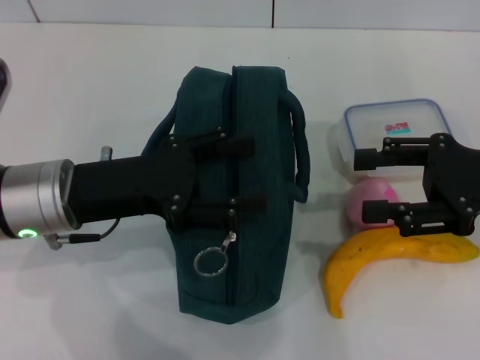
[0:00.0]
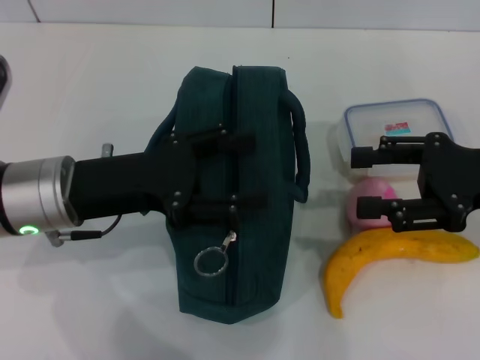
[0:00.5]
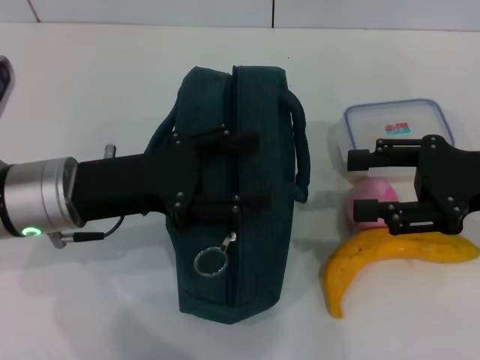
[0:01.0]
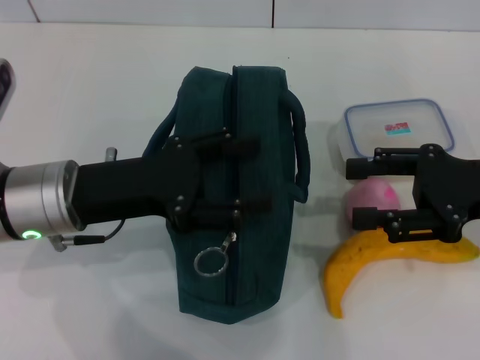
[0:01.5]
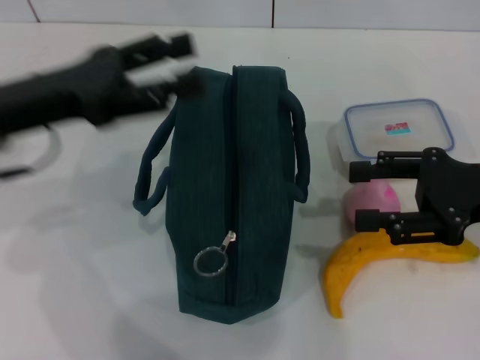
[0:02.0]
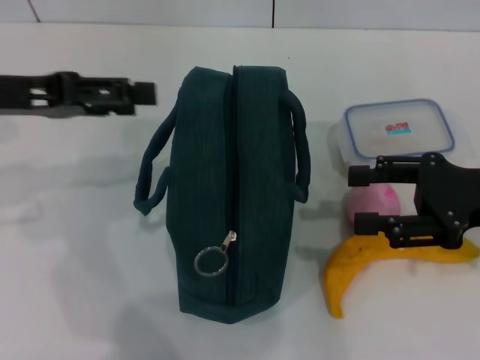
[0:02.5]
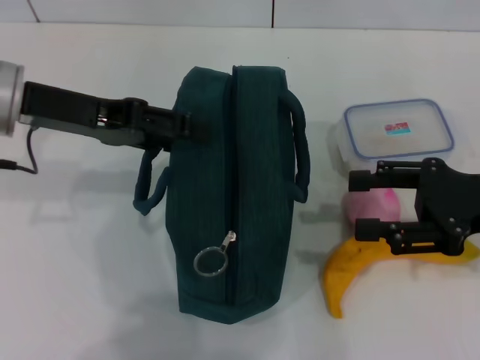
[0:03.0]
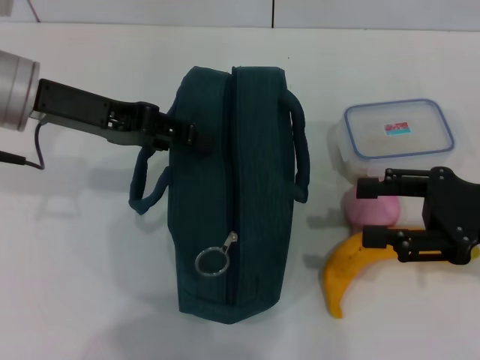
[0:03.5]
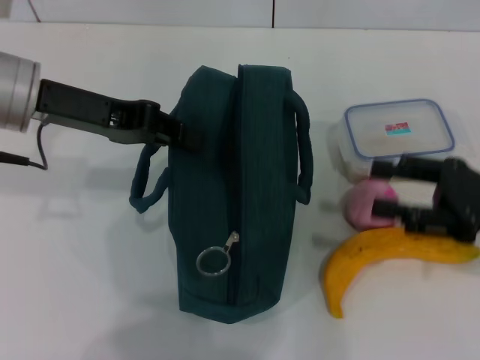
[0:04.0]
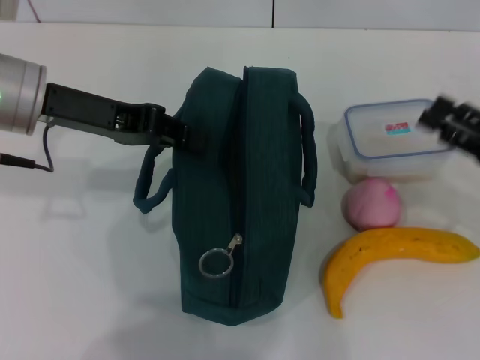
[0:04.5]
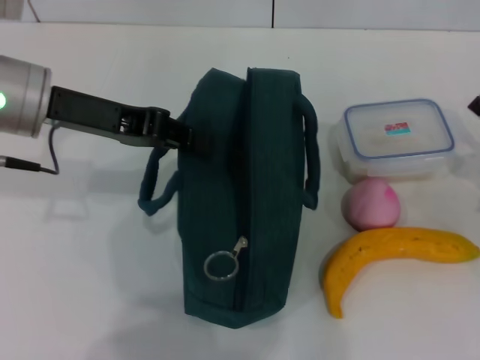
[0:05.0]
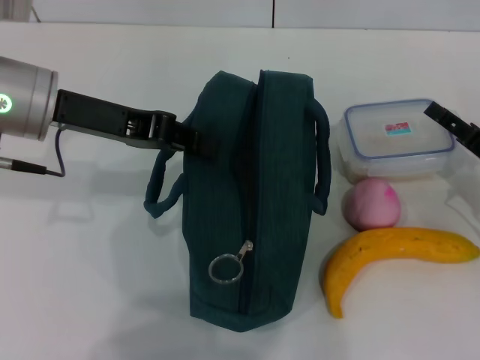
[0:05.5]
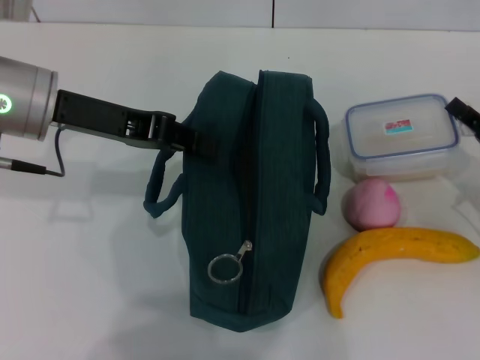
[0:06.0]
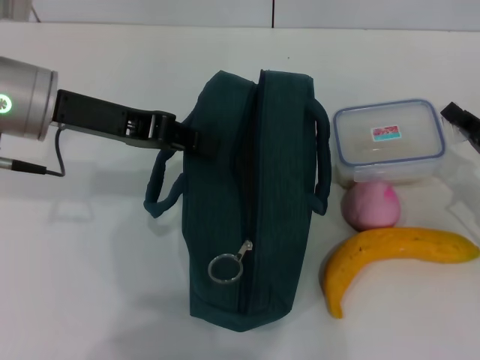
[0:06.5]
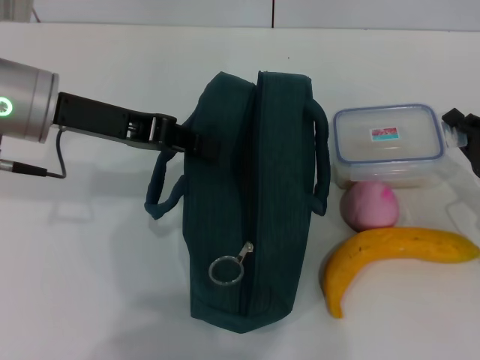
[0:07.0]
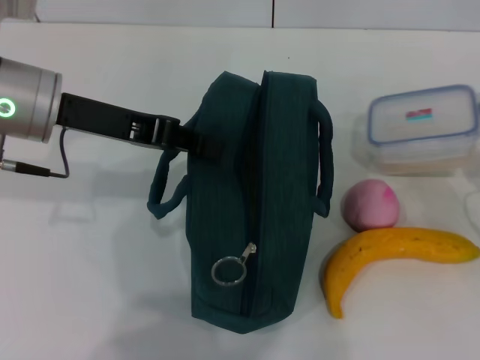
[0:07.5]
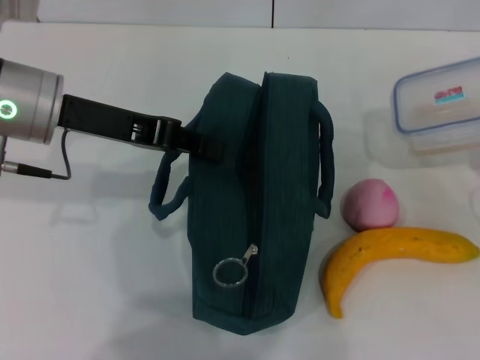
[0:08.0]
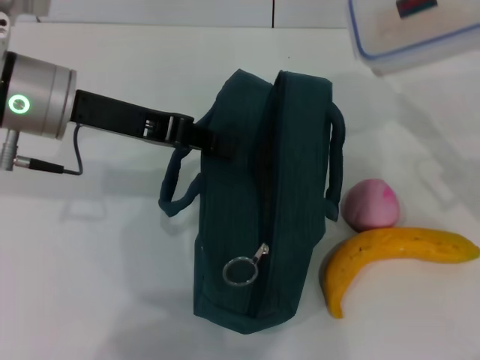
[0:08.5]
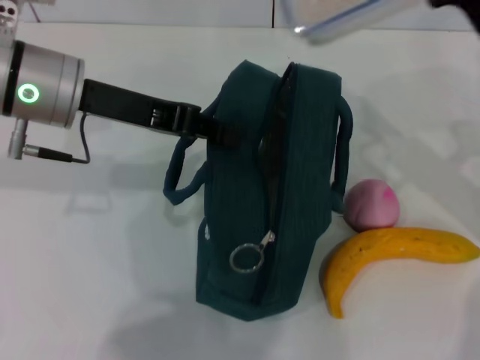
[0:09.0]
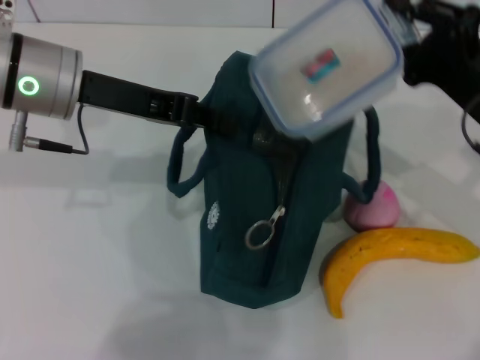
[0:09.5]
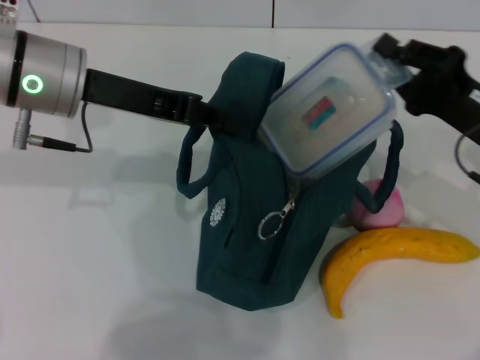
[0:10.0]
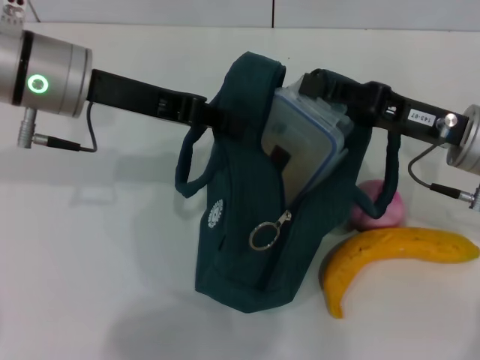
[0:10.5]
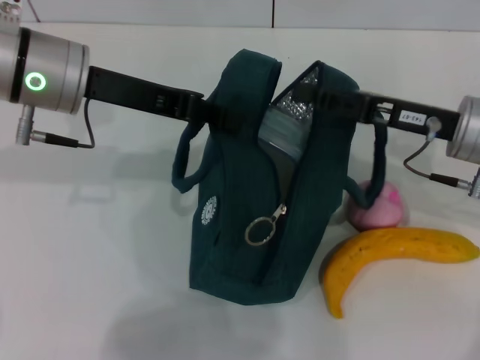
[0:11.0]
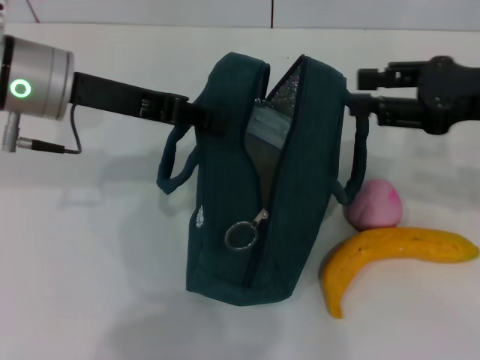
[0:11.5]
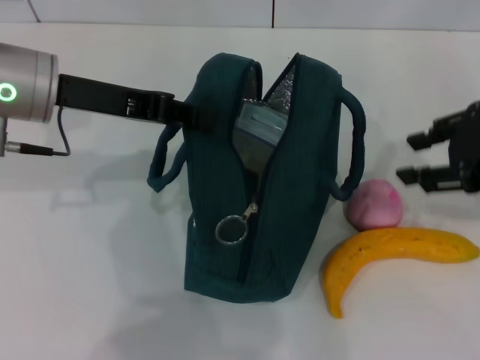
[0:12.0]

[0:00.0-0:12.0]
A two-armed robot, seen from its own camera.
Step, 0:00.0 to 0:05.0: Hold the lunch bag with your left hand.
Step, 0:06.5 to 0:11.0: Place the lunch box into the lunch bag with your right hand.
0:00.0 to 0:02.0: The left gripper shifts approximately 5 cm upward.
0:02.0 to 0:04.0: The left gripper shifts by some 5 cm, and closes.
0:04.0 to 0:06.0: The right gripper travels downward by approximately 5 cm.
0:06.0 to 0:08.0: The right gripper closes.
0:08.0 to 0:10.0: The right gripper is displaced to the left by about 10 cm.
0:10.0 to 0:12.0: The right gripper travels upward by roughly 10 cm, and opens up.

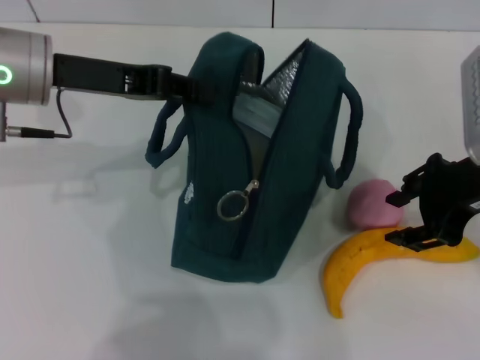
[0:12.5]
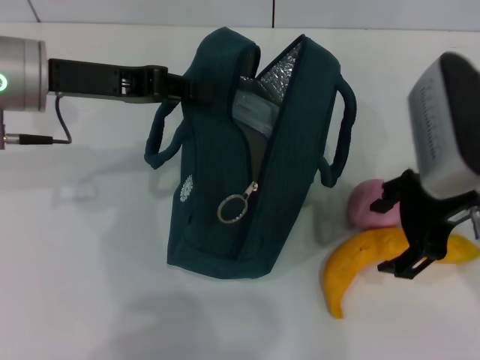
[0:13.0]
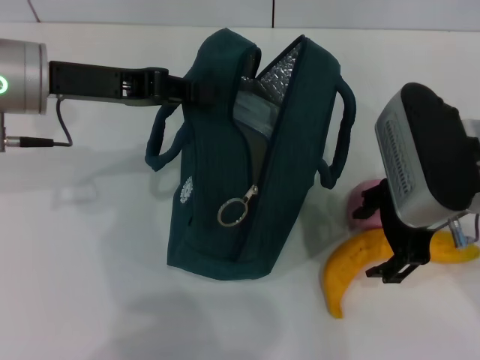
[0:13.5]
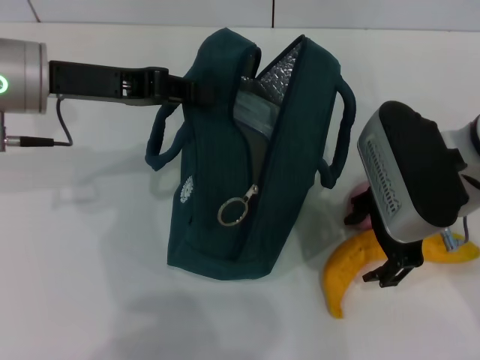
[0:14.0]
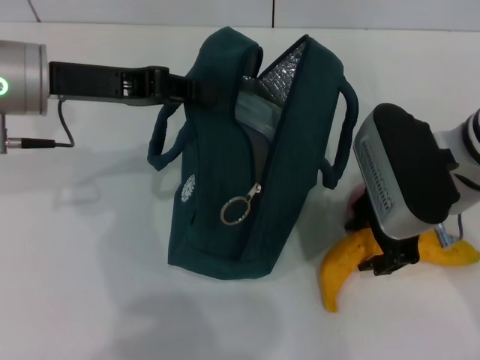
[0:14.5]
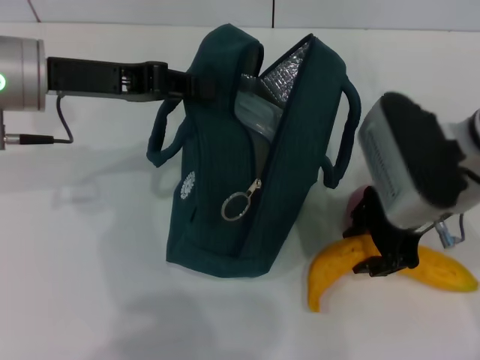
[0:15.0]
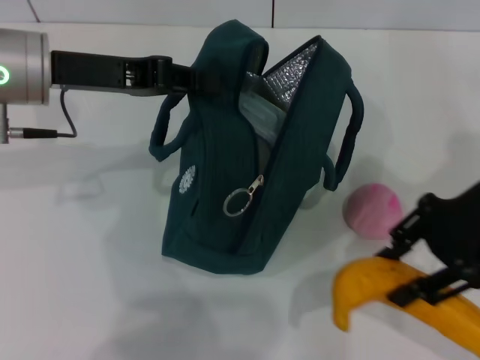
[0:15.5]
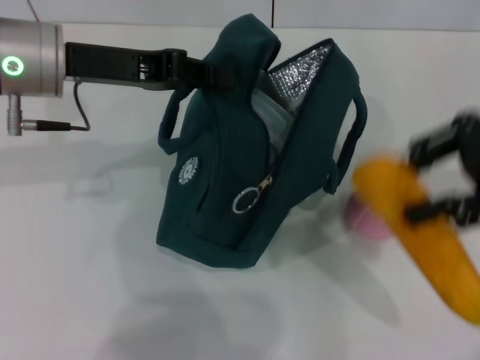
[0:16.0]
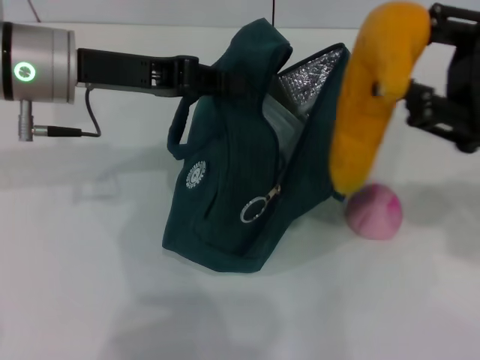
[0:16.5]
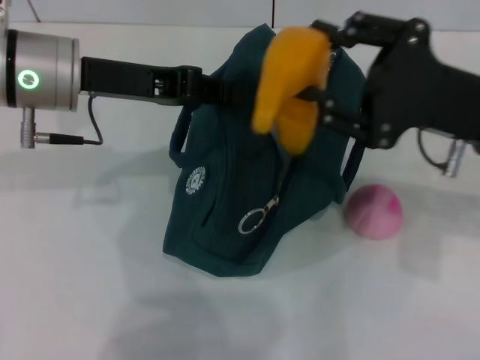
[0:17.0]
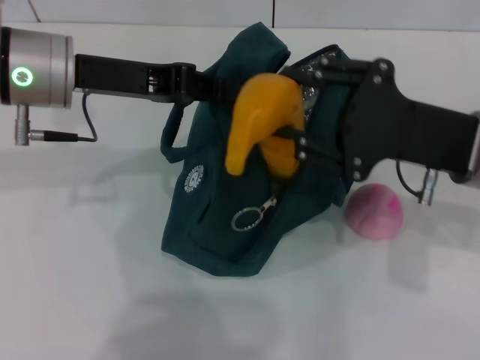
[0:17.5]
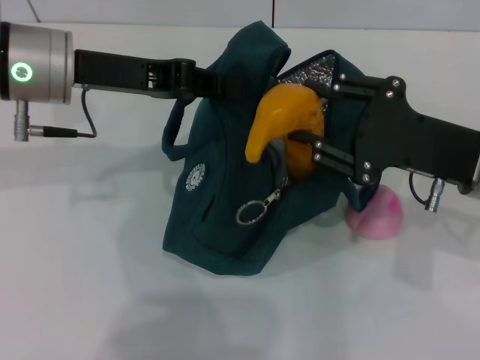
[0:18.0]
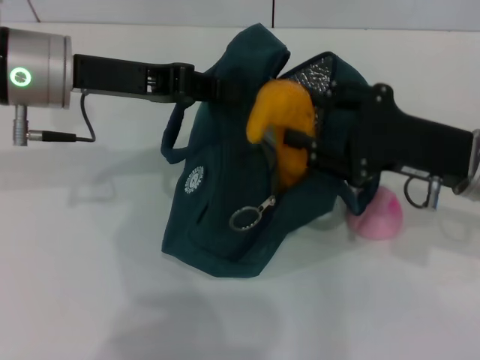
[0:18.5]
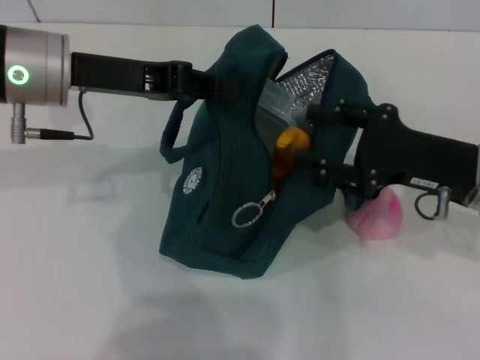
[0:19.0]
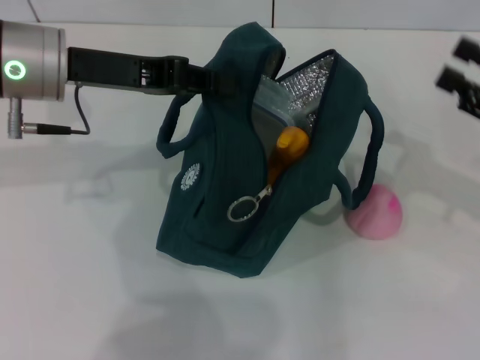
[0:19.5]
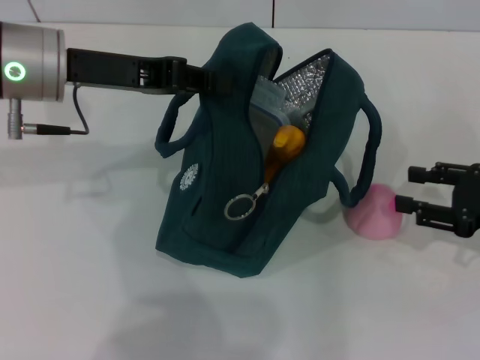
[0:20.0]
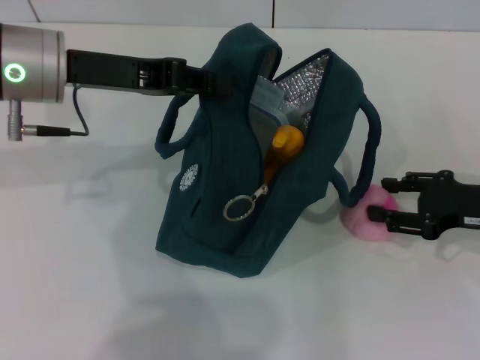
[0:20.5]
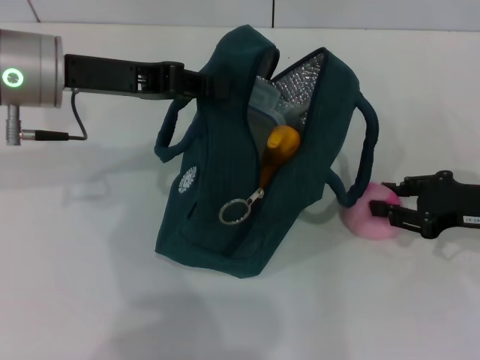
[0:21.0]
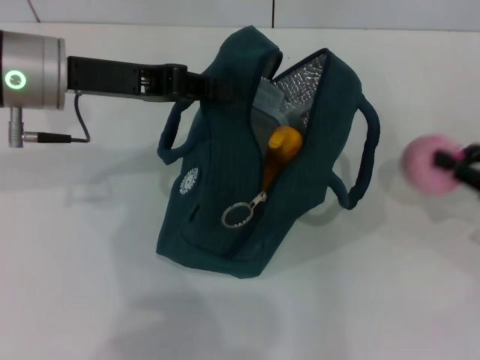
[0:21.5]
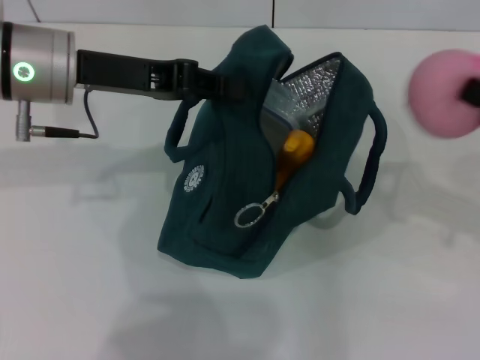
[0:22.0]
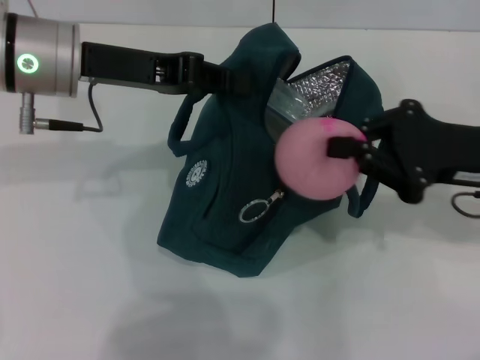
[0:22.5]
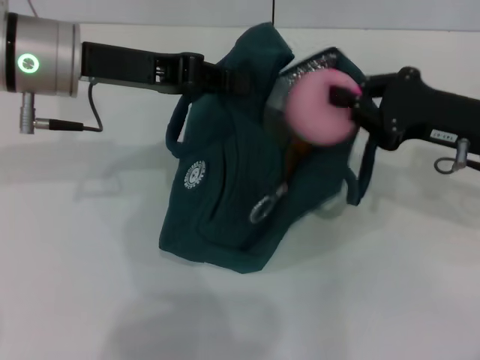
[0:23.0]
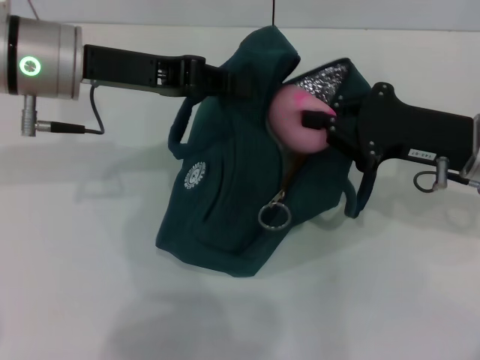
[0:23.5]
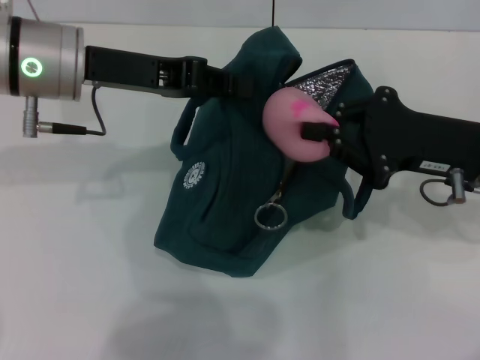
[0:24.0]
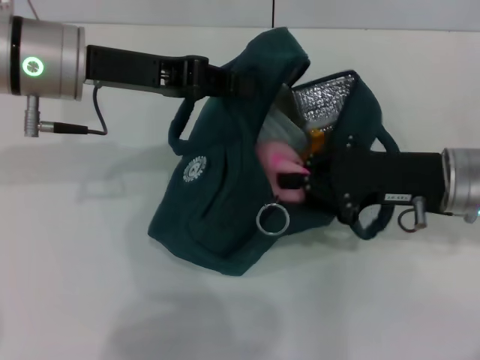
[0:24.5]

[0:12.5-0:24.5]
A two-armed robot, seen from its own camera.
Step, 0:12.5 to 0:14.5: Take the banana with your right hand.
Step, 0:15.0 to 0:19.0: Put the banana into the lunch bag with your right hand.
Step, 0:19.5 to 0:21.0: Grab the peach with your right hand.
0:12.5 to 0:14.5: The right gripper is displaced to the left by some 5 cm.
0:14.5 to 0:16.5: The right gripper is displaced to the right by approximately 10 cm.
0:16.5 to 0:18.5: The right gripper heads downward, covering roughly 5 cm.
0:18.5 to 0:20.5: The right gripper travels to the right and downward by approximately 10 cm.
0:20.5 to 0:22.5: The right gripper travels upward and to the left by roughly 10 cm, and closes its fingers.
0:22.5 to 0:24.5: The right gripper shifts by approximately 5 cm.

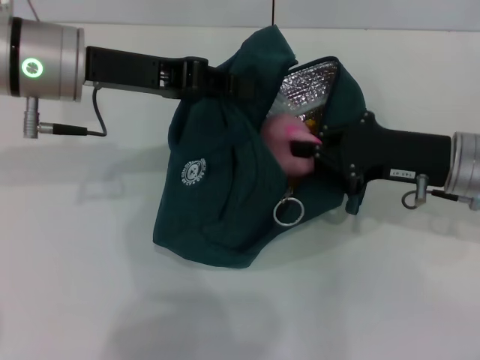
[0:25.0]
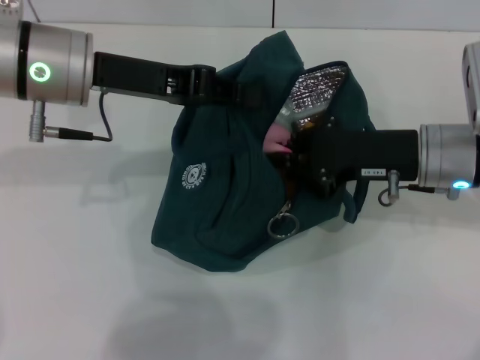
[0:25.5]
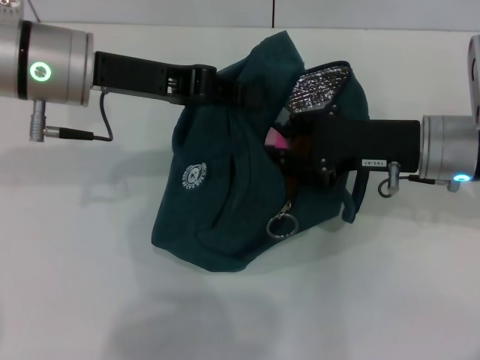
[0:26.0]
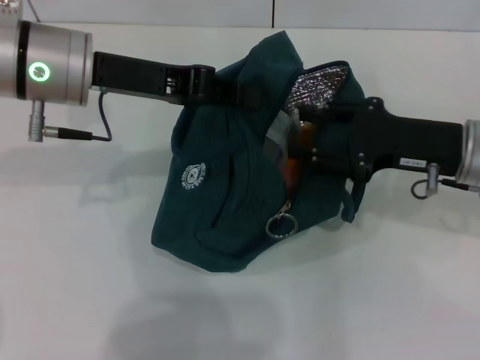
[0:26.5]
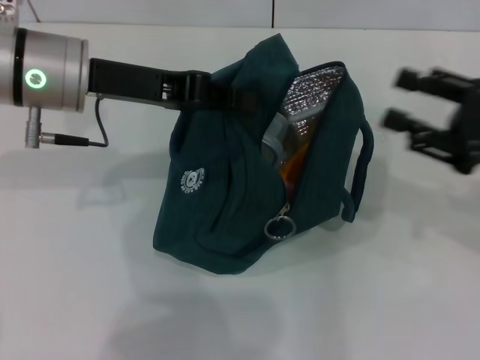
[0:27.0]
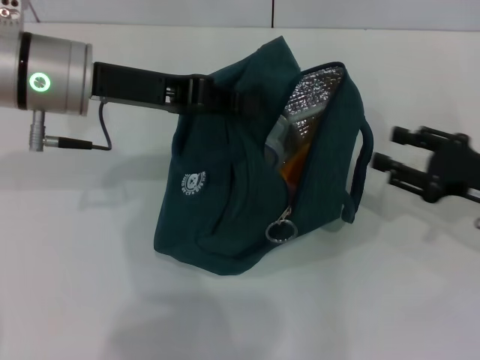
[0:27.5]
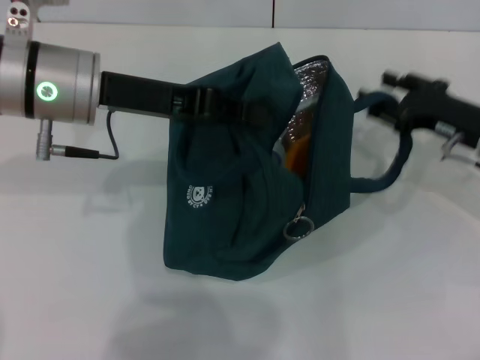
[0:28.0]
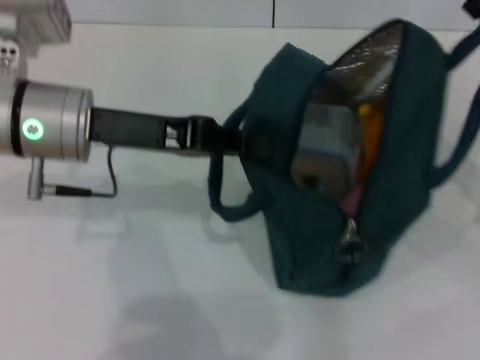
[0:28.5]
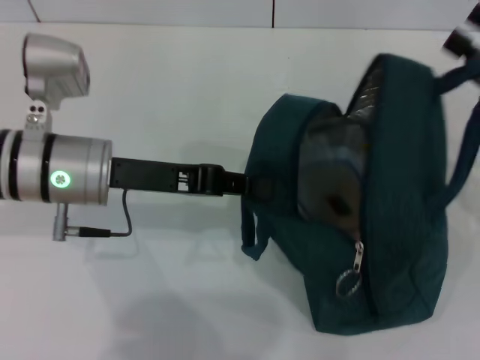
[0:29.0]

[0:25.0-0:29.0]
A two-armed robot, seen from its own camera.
0:25.0 to 0:27.0: The right gripper heads to the right, covering about 10 cm, and opens its fingers.
0:27.0 to 0:29.0: The left gripper moves downward, roughly 5 cm.
